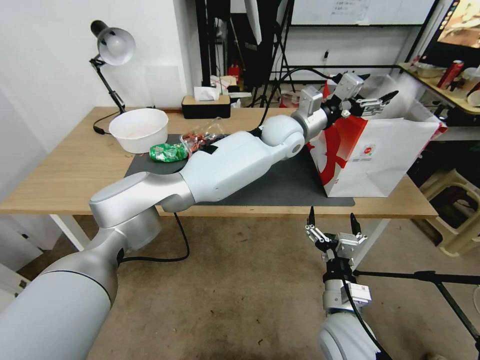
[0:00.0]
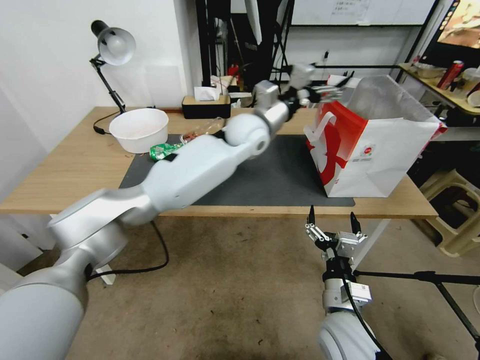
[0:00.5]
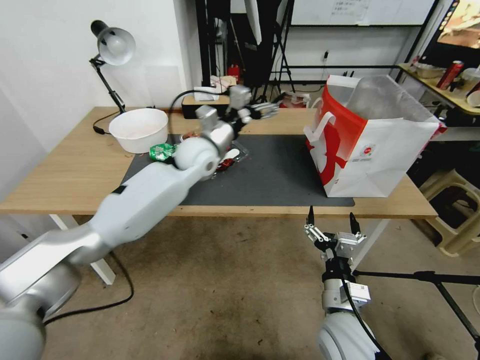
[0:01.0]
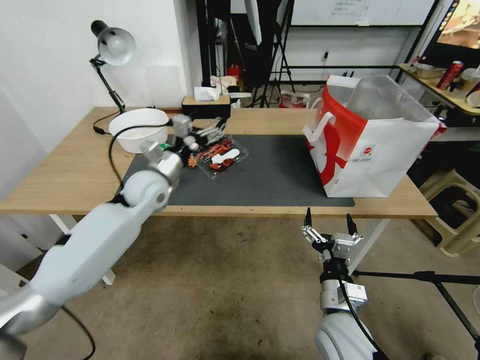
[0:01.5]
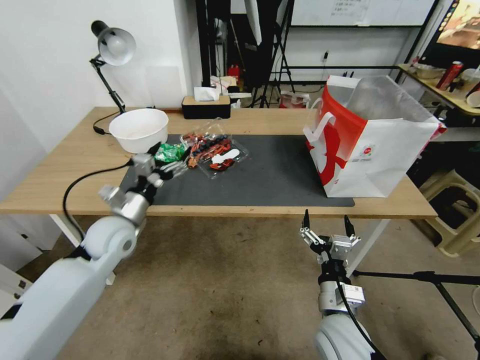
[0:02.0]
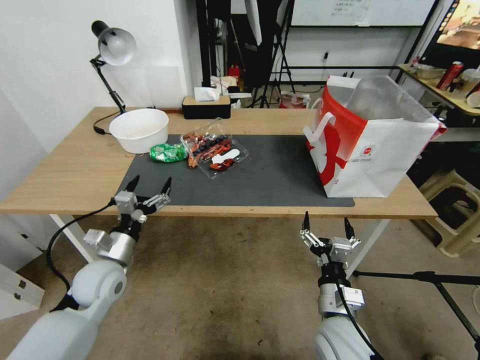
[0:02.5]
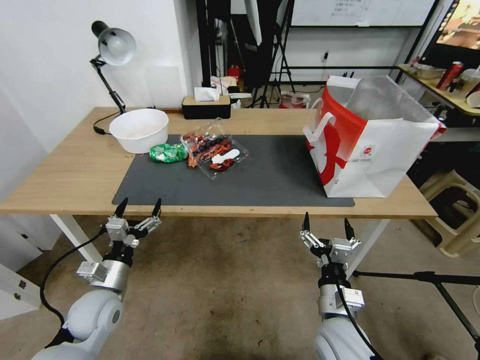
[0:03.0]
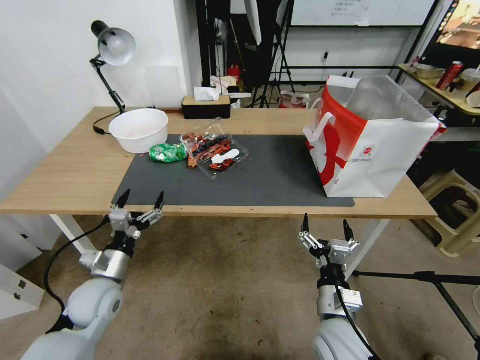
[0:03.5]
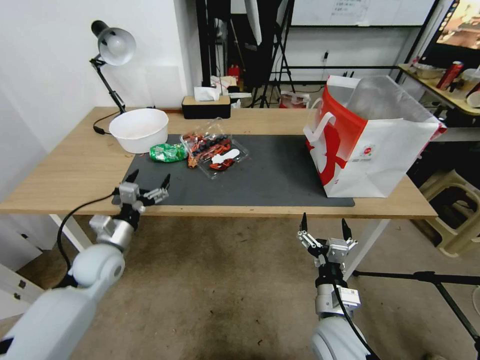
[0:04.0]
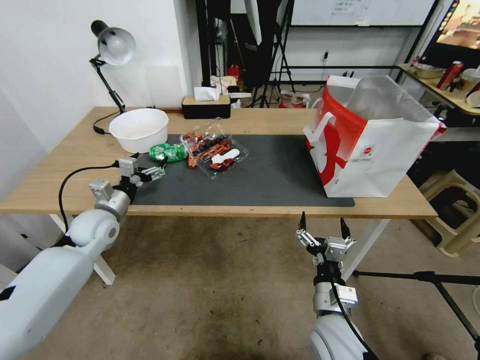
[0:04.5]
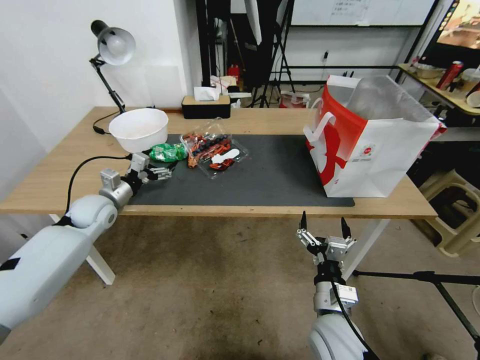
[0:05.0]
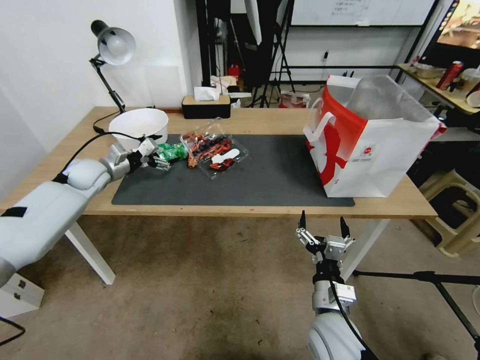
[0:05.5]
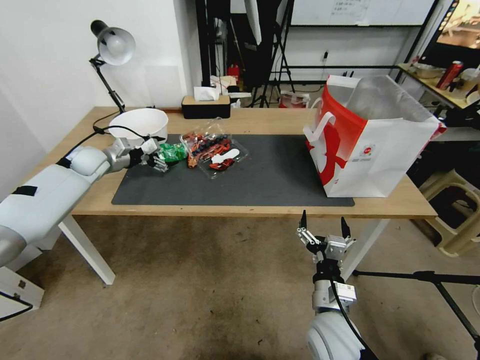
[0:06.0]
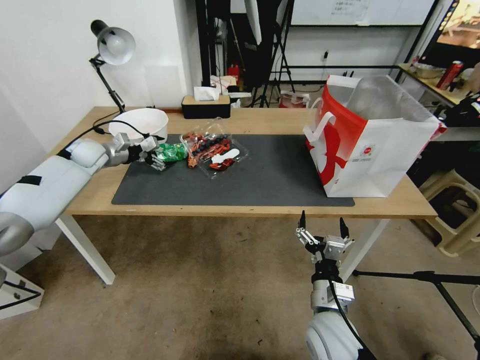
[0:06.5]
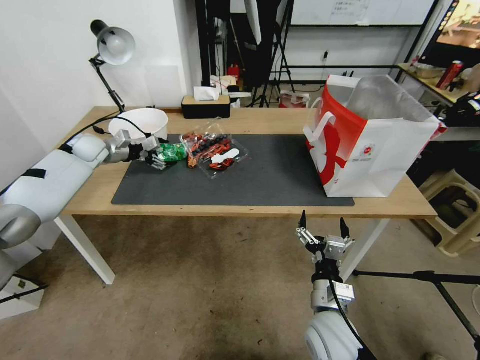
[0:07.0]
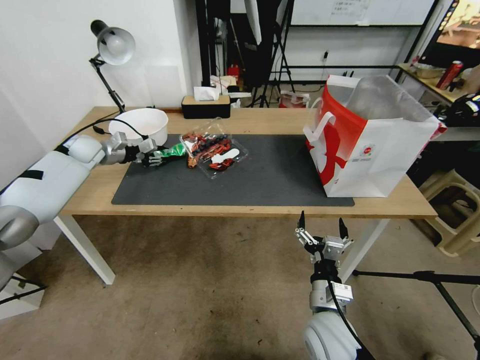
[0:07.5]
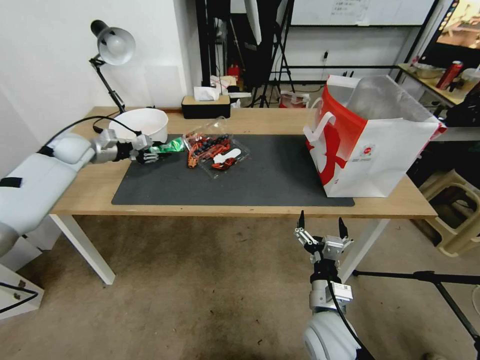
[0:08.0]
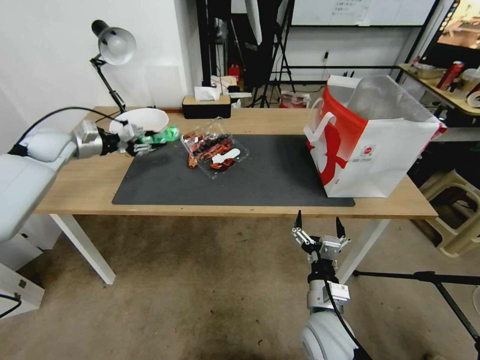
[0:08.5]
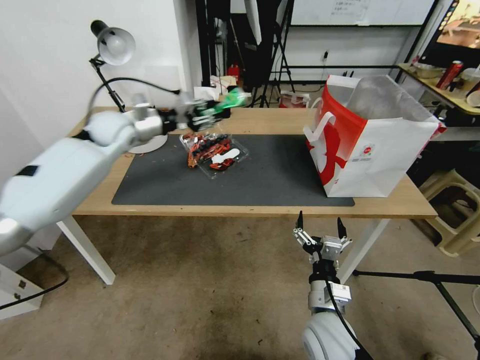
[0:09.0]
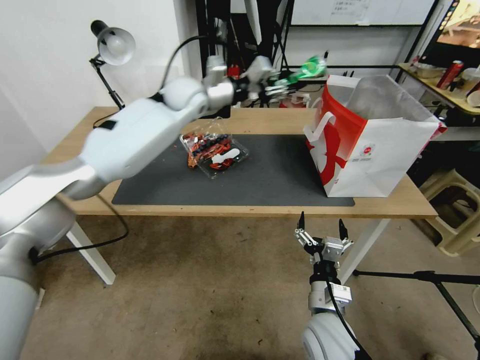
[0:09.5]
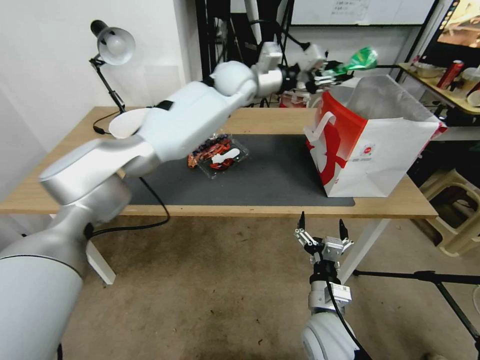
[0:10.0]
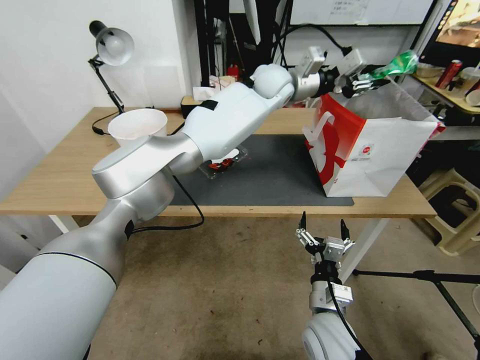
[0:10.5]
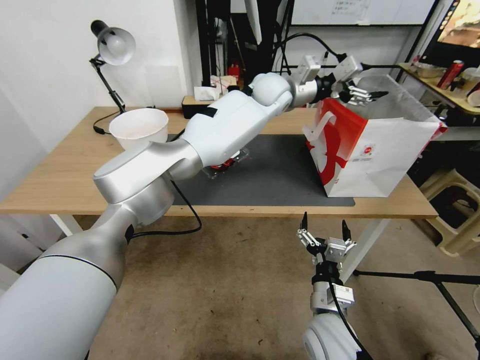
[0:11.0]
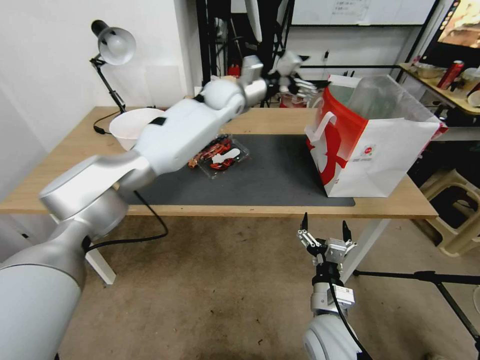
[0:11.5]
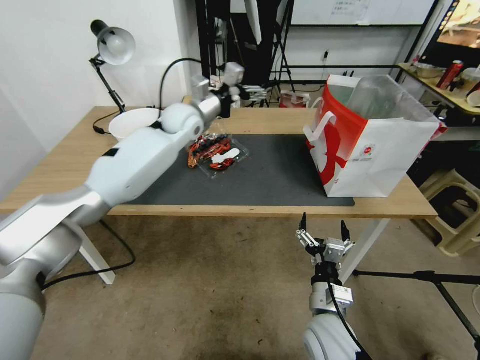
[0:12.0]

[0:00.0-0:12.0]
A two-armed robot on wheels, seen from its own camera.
0:00.0 to 0:02.0: The left gripper travels to the left and backward by roughly 40 cm.
0:02.0 to 0:04.0: The left gripper heads downward, covering approximately 5 cm, and travels backward and back again, some 10 cm each way.
0:04.0 to 0:06.0: The left gripper goes approximately 30 cm forward, upward and to the left.
0:06.0 to 0:08.0: The left gripper closes up.
0:08.0 to 0:10.0: The left gripper travels to the right by roughly 40 cm.
0:10.0 to 0:12.0: The left gripper moves to the left and downward, some 15 cm, and opens its fingers.

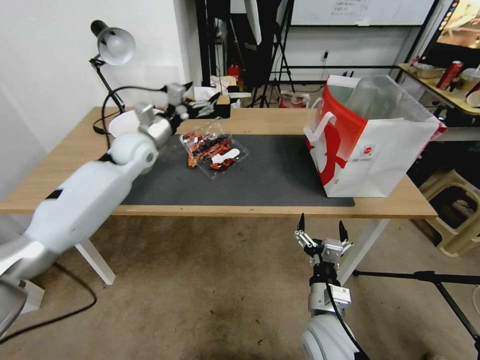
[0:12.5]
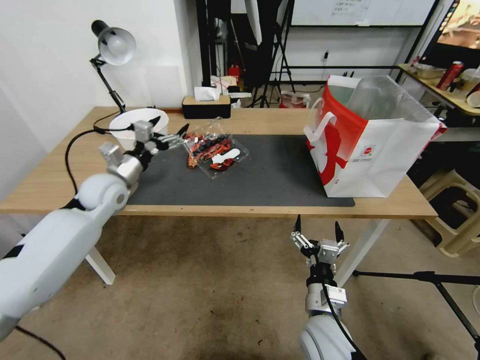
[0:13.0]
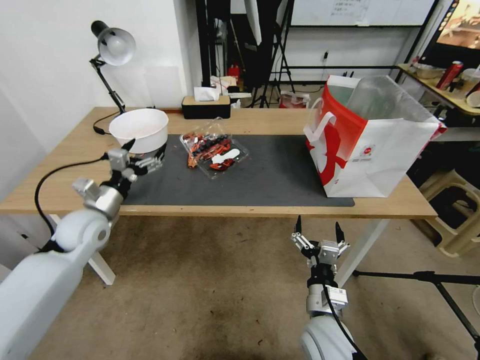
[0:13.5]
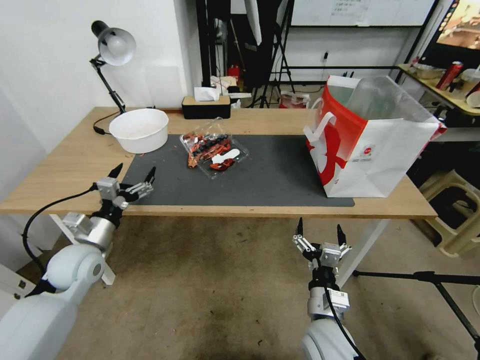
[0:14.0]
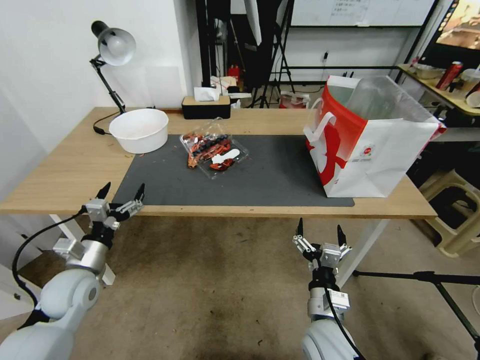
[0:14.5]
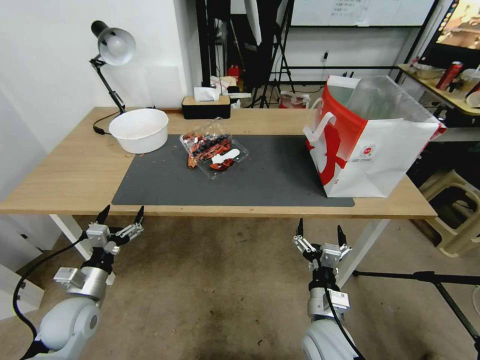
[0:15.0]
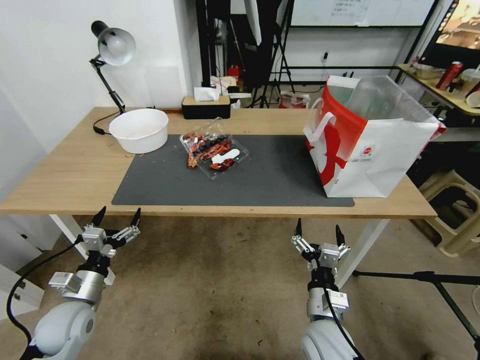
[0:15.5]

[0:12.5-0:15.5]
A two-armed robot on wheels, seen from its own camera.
0:12.5 to 0:14.0: The left gripper moves backward, downward and to the left, approximately 30 cm.
0:14.0 to 0:15.5: The left gripper goes roughly 10 cm backward and downward.

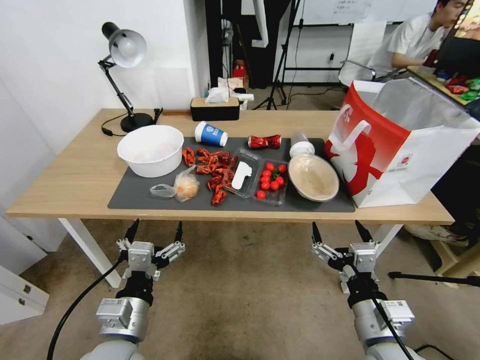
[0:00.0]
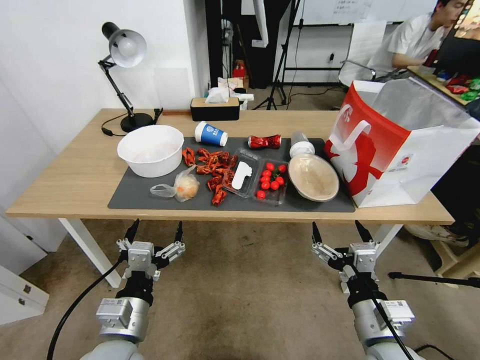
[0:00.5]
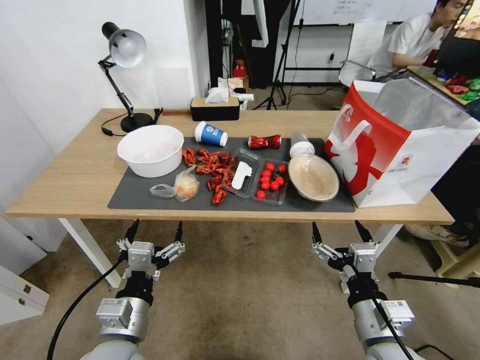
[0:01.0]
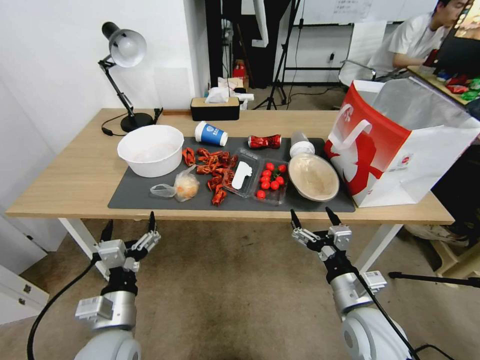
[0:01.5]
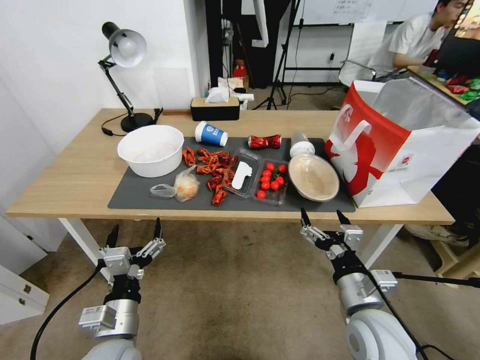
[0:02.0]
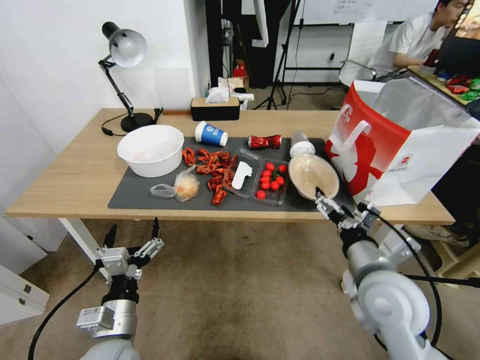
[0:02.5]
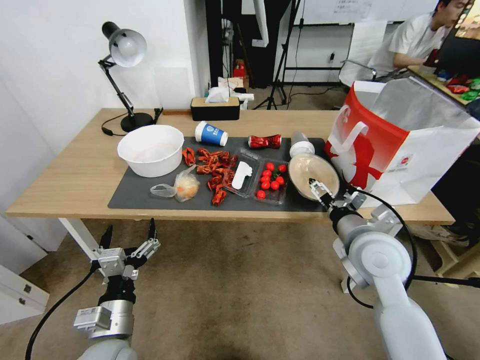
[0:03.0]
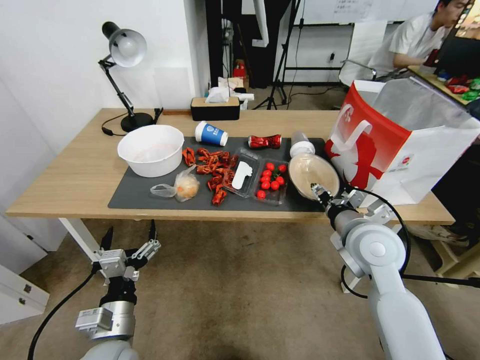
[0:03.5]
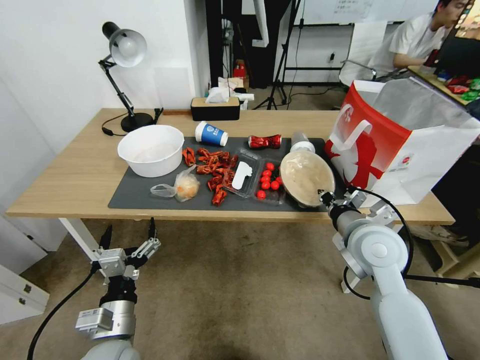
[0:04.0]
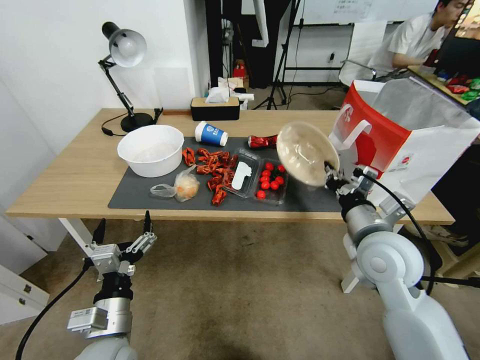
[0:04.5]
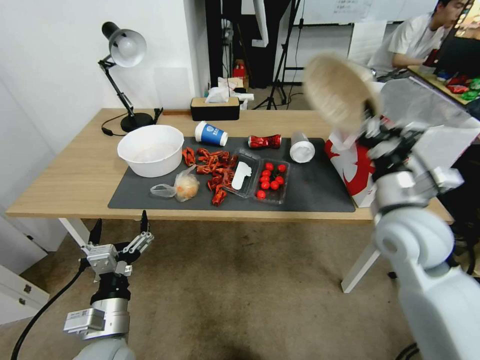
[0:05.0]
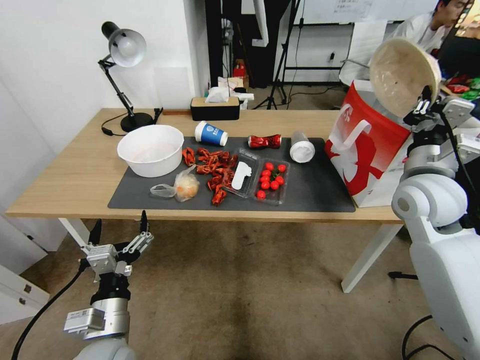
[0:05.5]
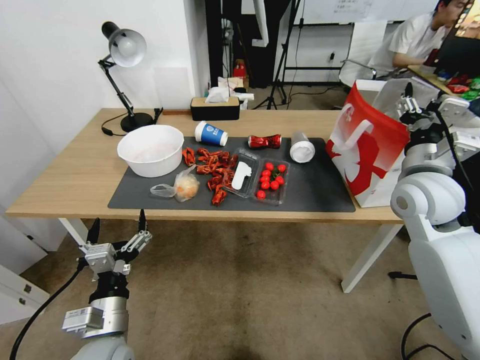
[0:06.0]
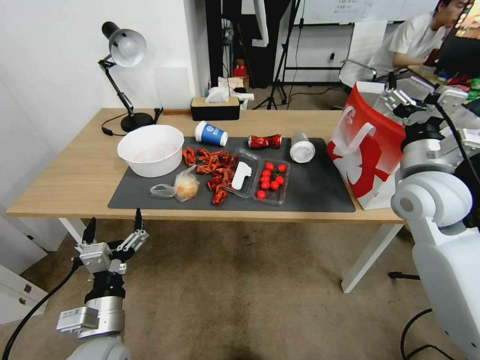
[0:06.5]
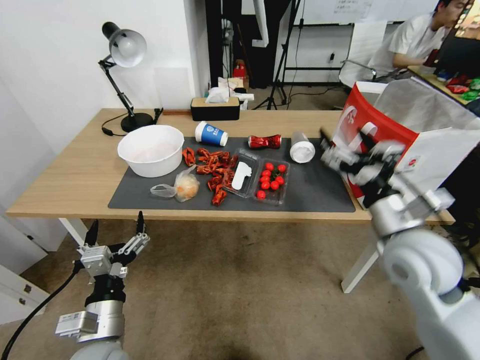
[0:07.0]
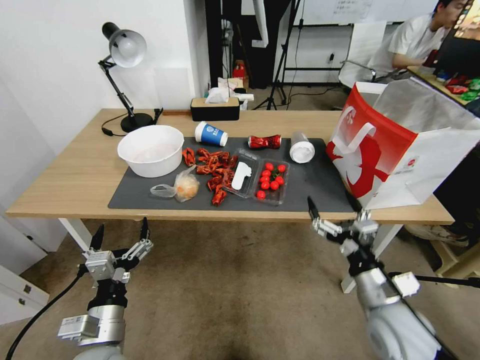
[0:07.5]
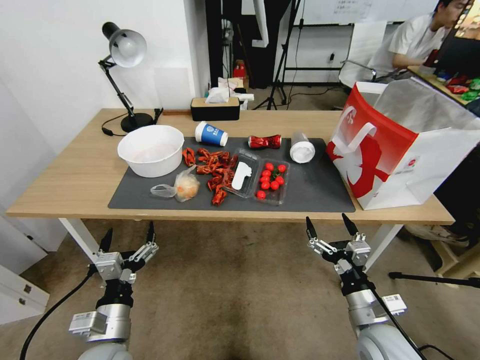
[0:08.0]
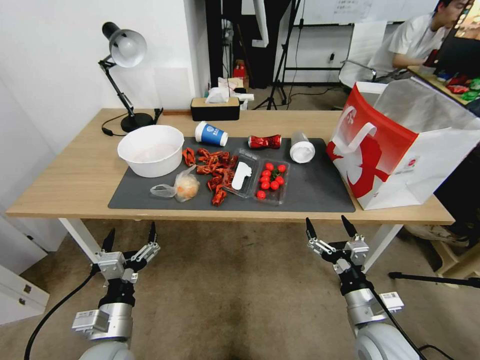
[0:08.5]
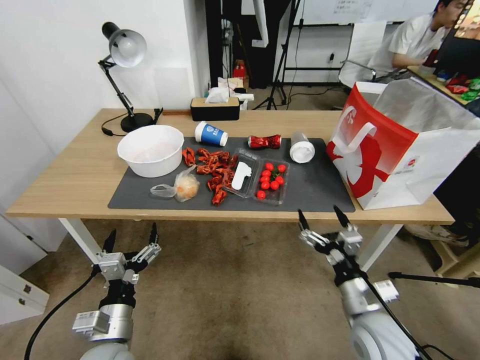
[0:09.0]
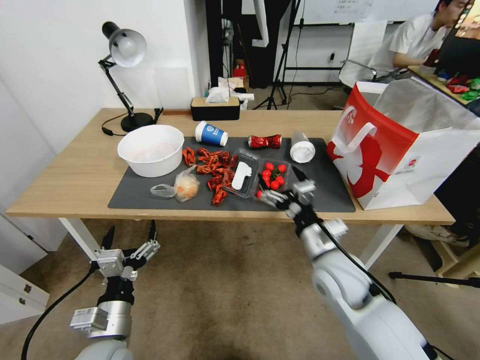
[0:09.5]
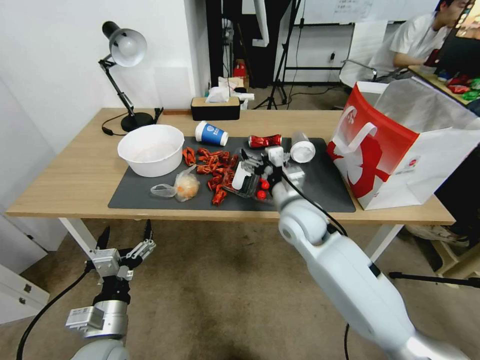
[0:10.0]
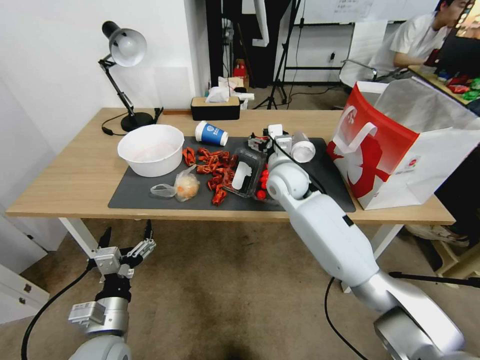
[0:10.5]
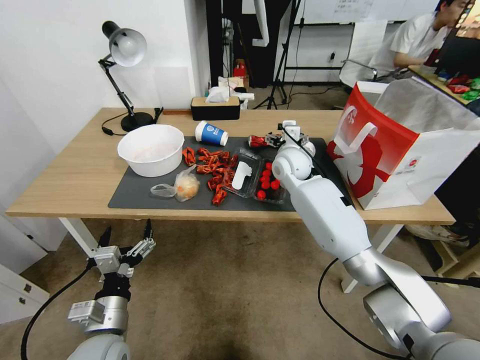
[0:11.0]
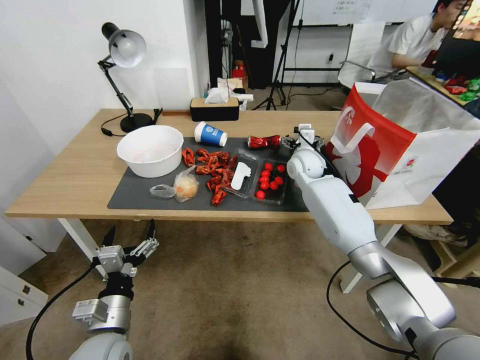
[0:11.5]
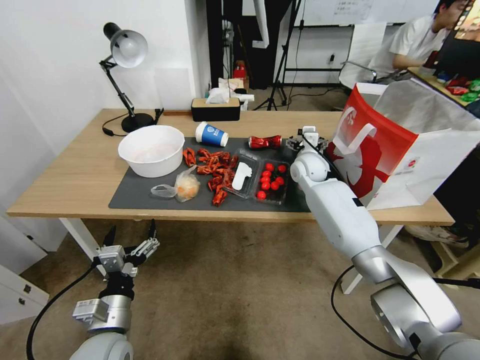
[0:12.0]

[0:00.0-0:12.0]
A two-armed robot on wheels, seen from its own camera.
0:02.0 to 0:04.0: The right gripper moves forward and upward, approximately 15 cm, and closes its fingers.
0:04.0 to 0:06.0: The right gripper heads to the right, upward and forward, covering some 15 cm, and opens up.
0:06.0 to 0:08.0: The right gripper heads downward and backward, covering about 30 cm, and opens up.
0:08.0 to 0:10.0: The right gripper goes approximately 30 cm forward, to the left and upward.
0:10.0 to 0:12.0: The right gripper shifts approximately 20 cm forward.
